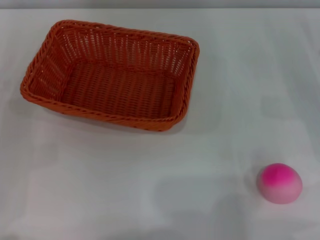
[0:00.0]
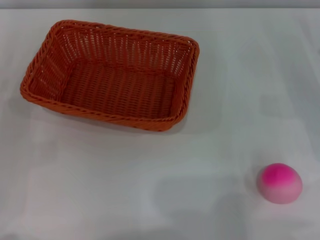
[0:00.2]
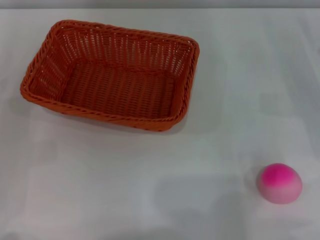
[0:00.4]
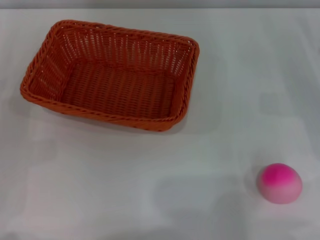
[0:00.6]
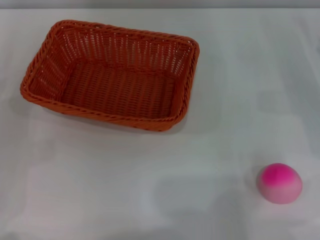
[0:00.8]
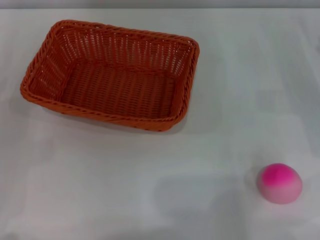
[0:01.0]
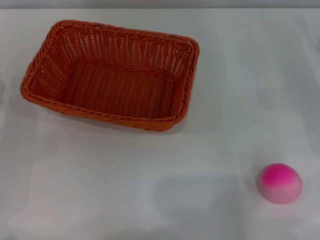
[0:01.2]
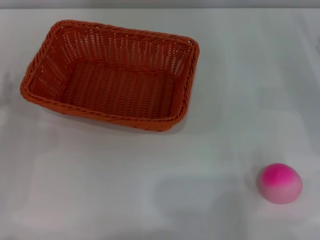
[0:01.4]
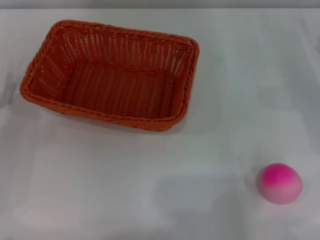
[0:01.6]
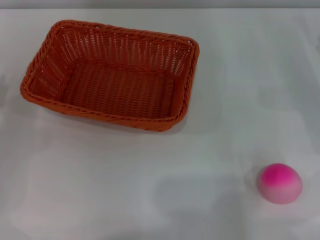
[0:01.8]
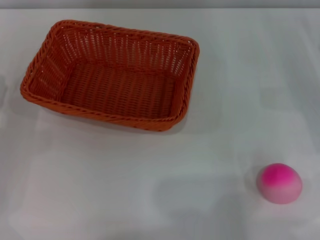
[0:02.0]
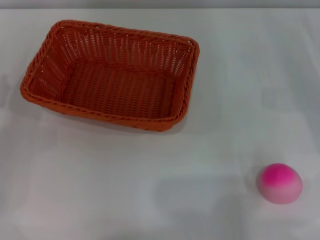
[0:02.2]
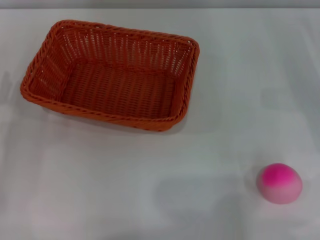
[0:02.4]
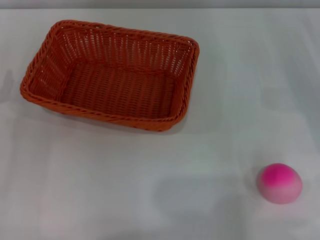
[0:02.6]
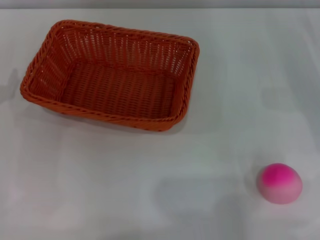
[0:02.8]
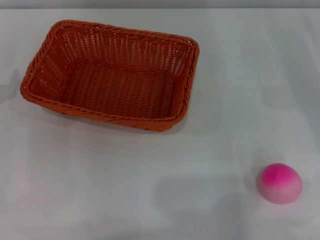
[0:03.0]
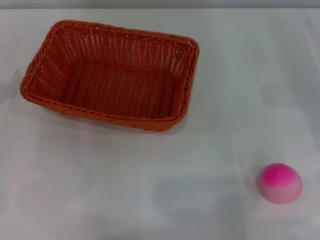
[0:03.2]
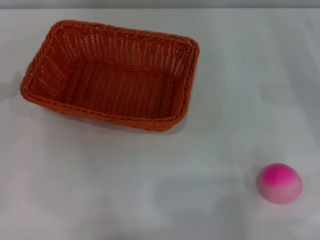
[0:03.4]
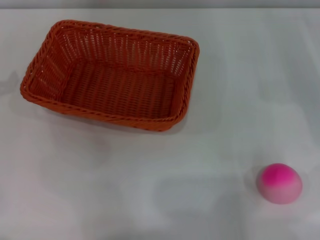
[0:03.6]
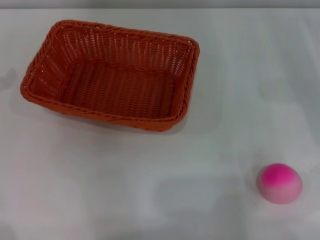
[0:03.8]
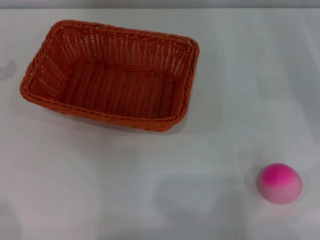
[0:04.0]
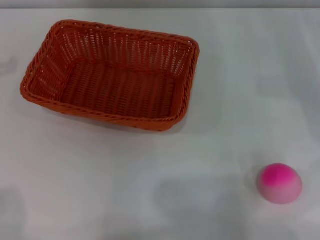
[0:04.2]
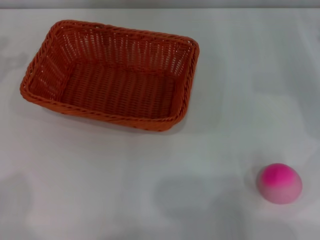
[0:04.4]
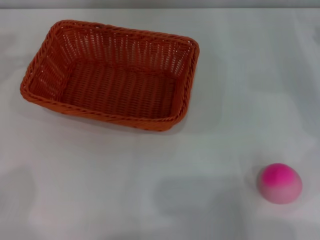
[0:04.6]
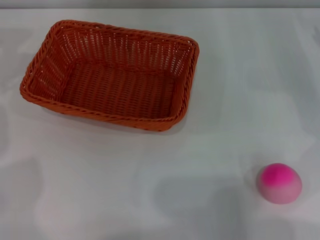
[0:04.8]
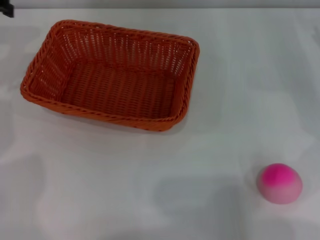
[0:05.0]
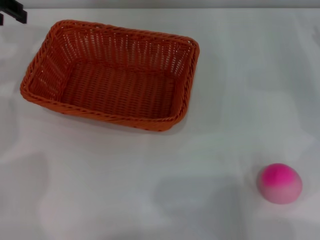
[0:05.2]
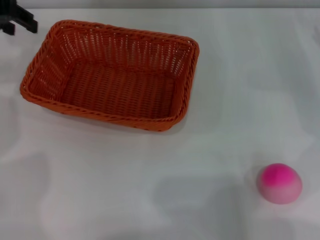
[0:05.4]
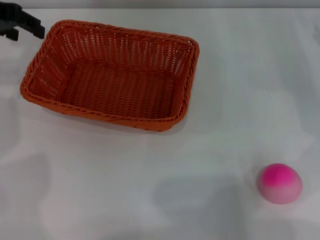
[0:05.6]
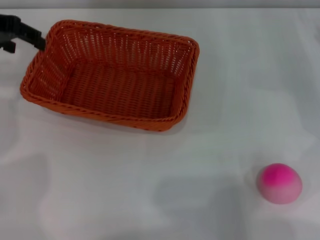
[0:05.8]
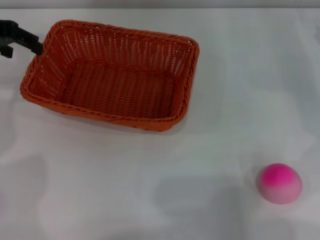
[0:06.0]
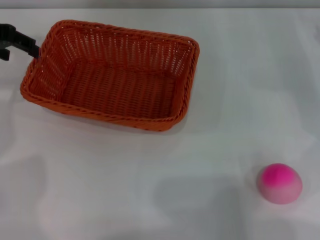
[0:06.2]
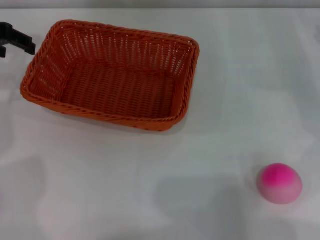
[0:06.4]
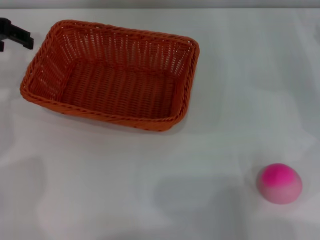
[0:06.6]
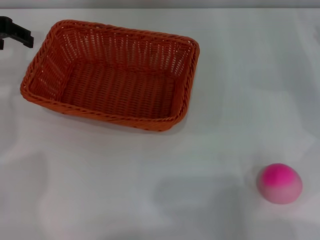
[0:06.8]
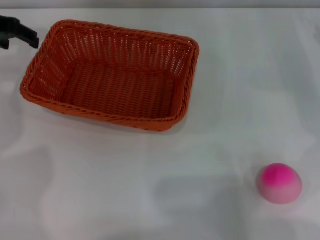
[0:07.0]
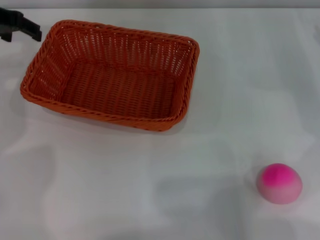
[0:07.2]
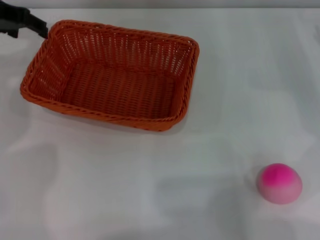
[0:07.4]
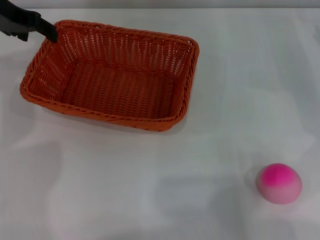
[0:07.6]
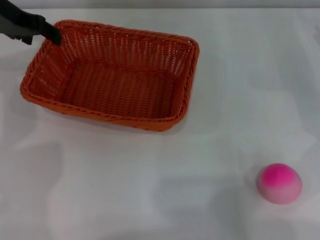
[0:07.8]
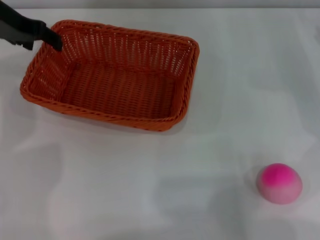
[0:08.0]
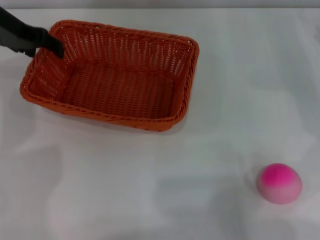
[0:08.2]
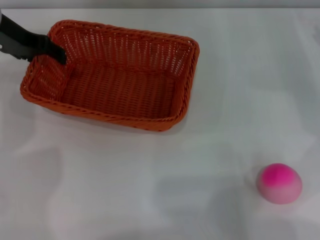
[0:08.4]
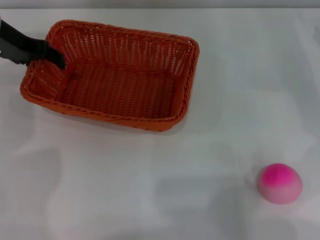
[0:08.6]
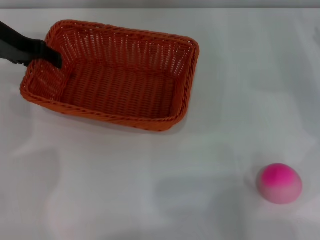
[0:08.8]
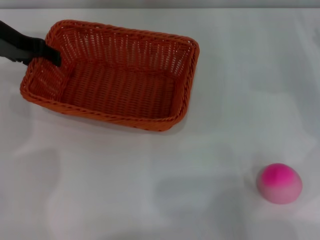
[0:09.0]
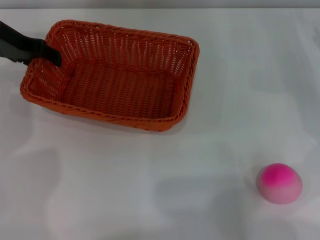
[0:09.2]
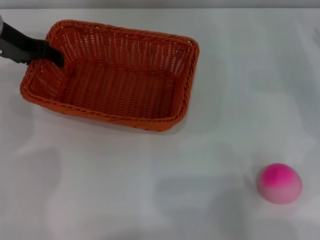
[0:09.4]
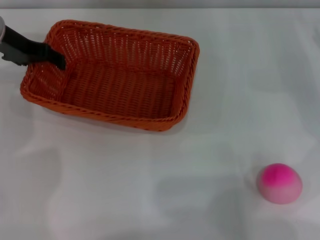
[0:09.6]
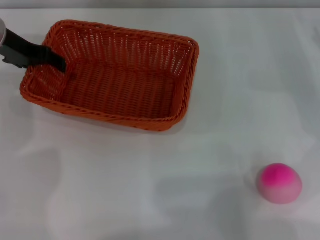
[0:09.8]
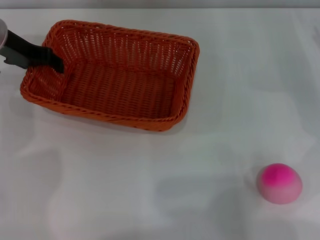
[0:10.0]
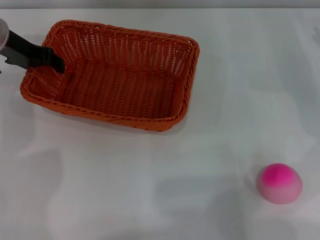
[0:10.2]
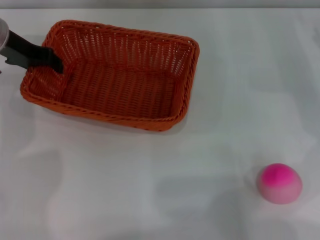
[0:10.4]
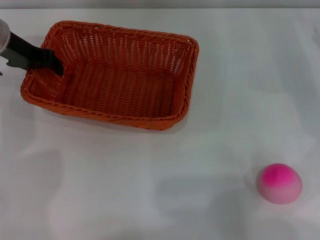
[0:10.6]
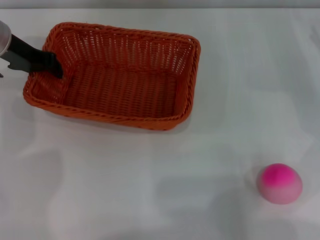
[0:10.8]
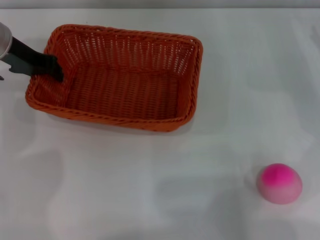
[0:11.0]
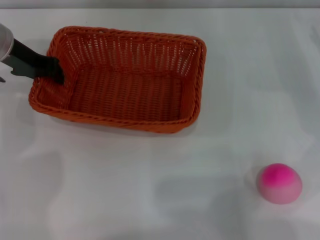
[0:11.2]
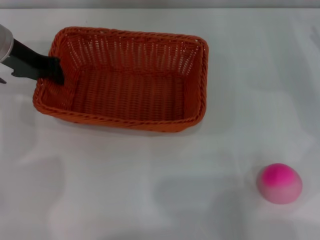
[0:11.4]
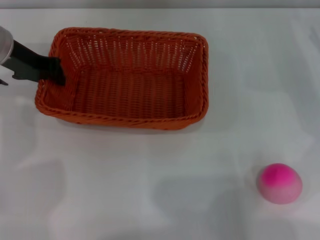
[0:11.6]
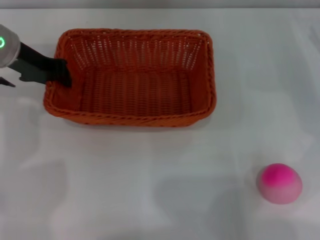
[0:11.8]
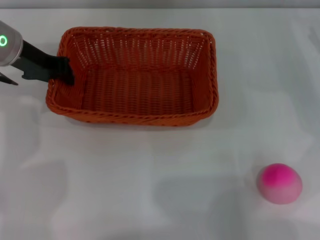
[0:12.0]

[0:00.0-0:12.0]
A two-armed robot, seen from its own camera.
Step, 0:00.0 to 0:11.0: Pick up the light basket with the left gripper.
0:04.4 to 0:06.0: The left gripper heads to the right, covering approximately 5 cm.
0:06.0 to 0:07.6: The left gripper ends up approximately 5 cm from where it was.
0:07.6 to 0:09.0: The grippers stay close to where they were, moving slightly.
0:09.0 to 0:10.4: The left gripper closes its fingers.
0:10.4 to 0:12.0: The left gripper closes up.

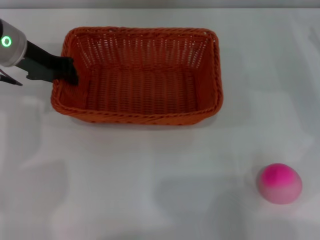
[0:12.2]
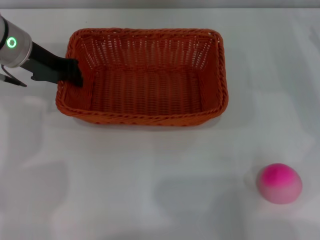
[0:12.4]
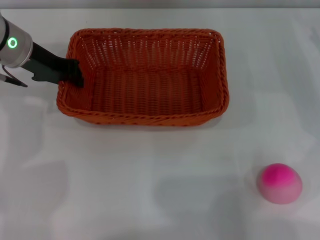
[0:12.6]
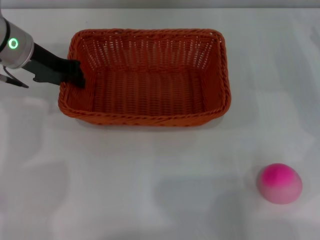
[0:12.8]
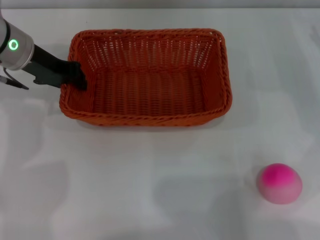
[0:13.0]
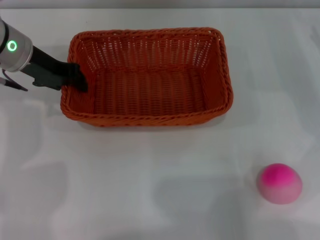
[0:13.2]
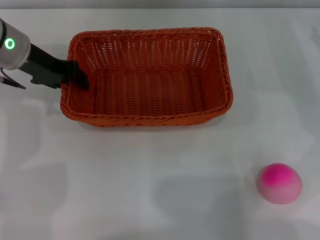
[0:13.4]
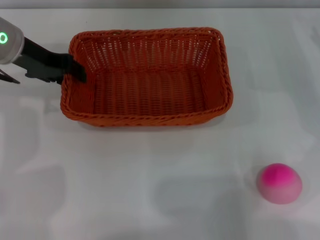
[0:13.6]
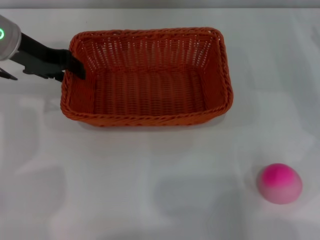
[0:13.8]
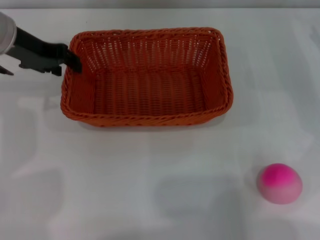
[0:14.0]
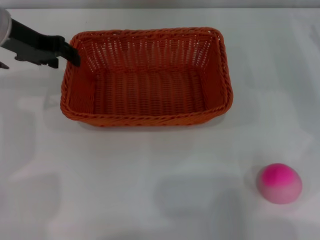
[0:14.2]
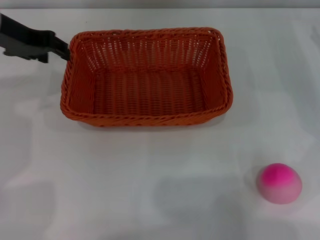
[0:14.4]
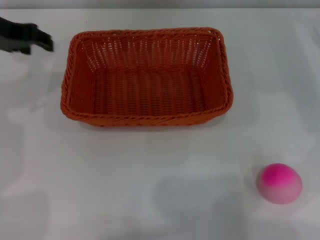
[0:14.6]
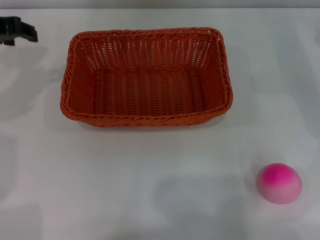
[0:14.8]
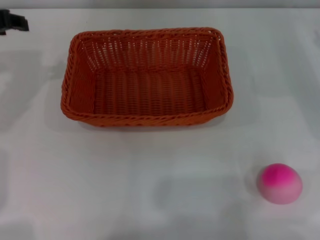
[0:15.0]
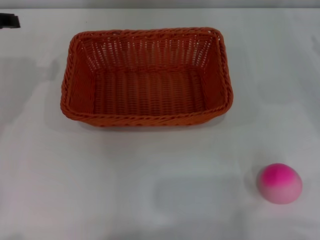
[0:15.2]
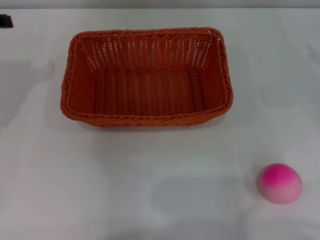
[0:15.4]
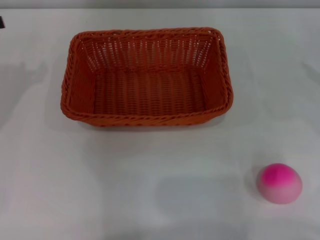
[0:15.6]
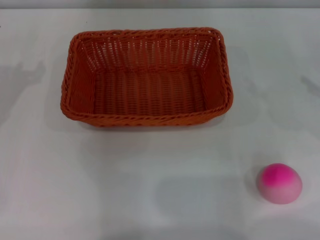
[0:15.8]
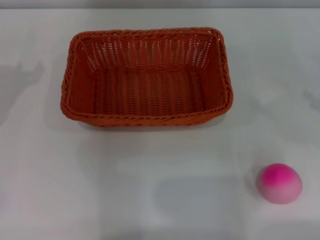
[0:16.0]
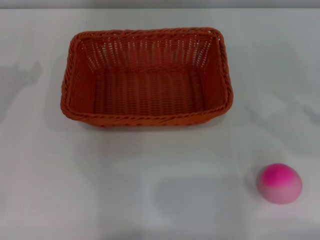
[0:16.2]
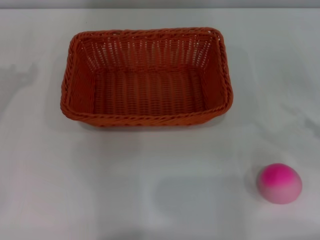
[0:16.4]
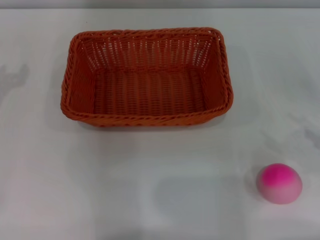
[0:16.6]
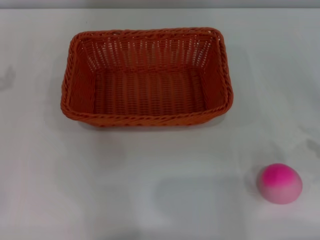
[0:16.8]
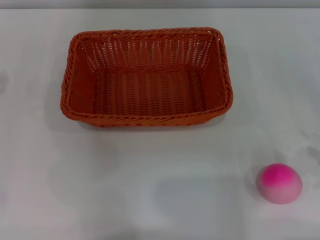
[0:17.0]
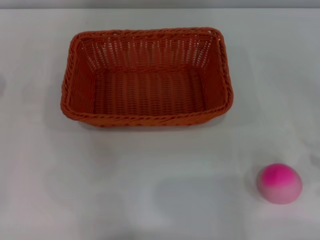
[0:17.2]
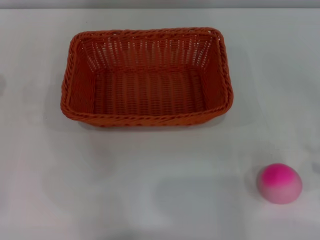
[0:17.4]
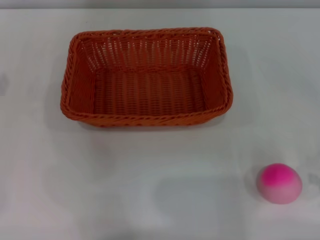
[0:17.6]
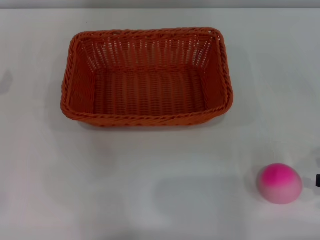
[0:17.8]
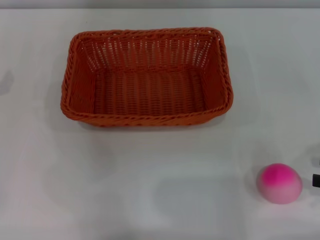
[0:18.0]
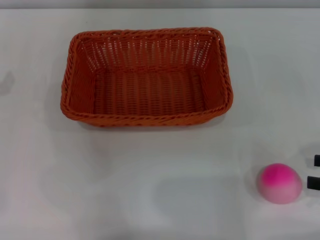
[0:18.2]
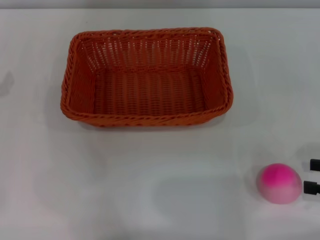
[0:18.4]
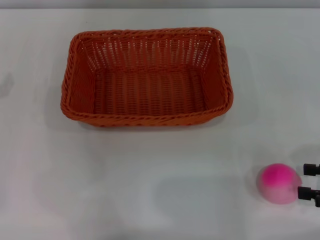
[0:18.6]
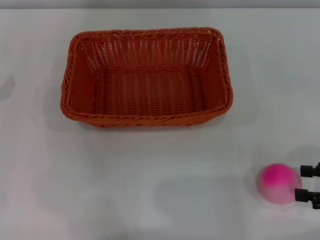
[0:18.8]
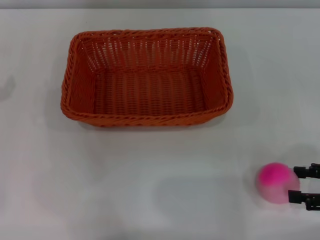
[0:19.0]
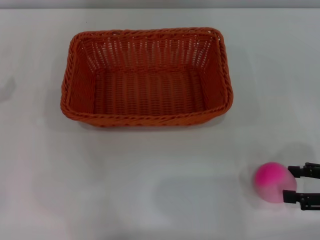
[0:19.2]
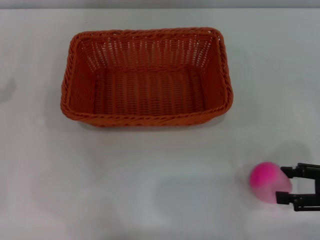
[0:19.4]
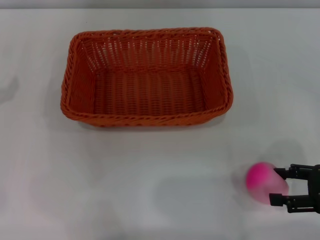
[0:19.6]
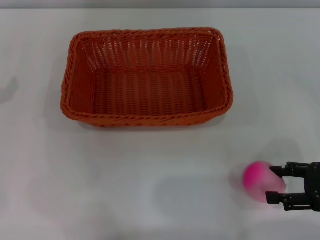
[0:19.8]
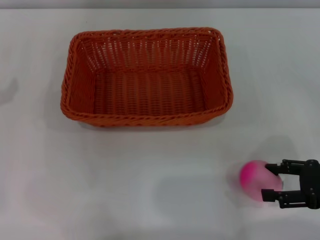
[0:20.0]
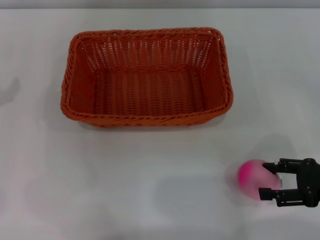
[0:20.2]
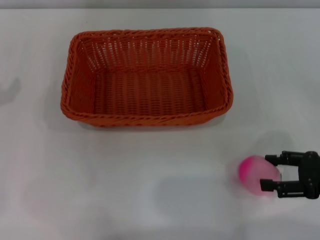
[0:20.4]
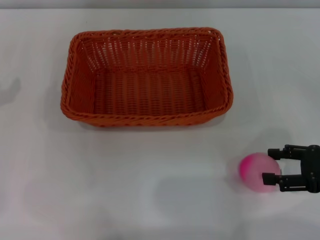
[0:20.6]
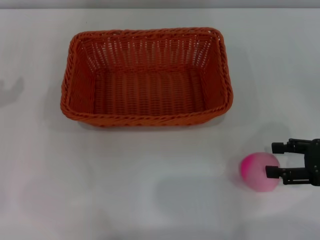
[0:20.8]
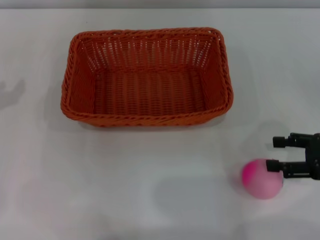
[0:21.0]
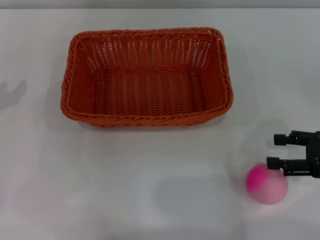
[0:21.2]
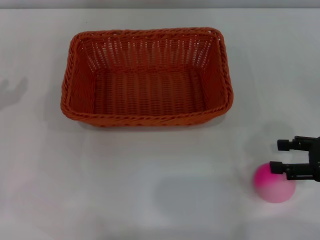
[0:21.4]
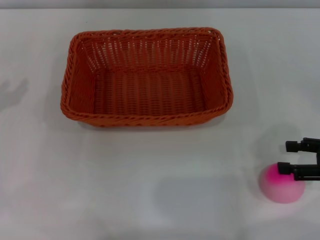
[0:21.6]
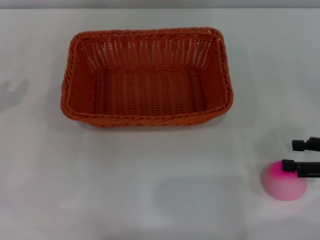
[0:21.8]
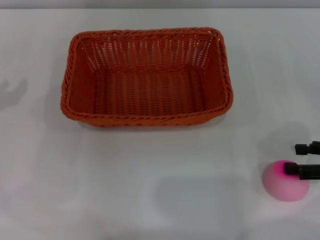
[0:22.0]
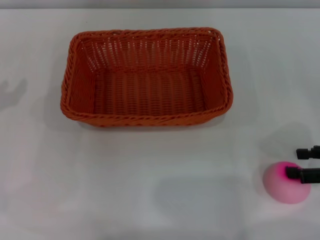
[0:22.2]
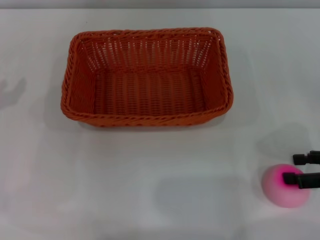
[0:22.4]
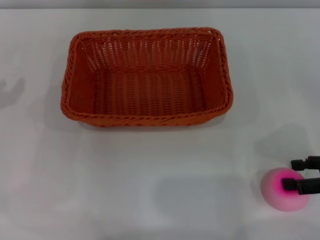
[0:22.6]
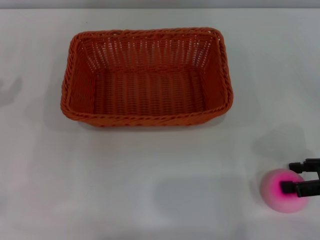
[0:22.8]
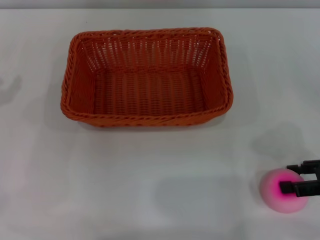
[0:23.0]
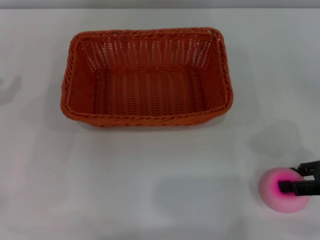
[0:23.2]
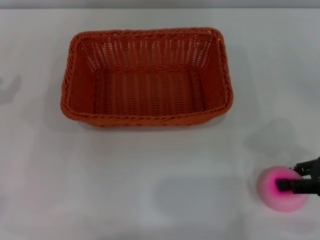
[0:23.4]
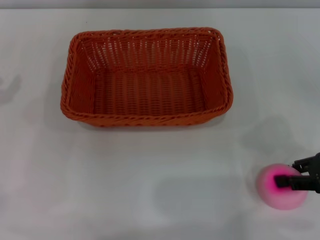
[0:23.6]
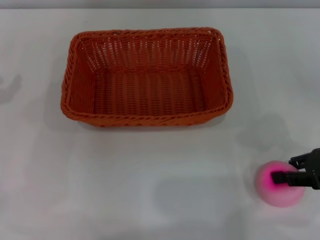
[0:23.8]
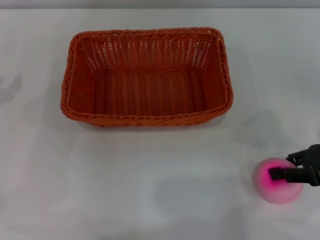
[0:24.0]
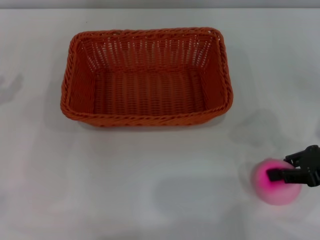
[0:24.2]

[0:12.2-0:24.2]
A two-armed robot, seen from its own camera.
Step, 0:12.2 to 0:14.6: Place the light basket in the center of view with the right gripper.
0:12.2 to 0:13.8: The left gripper opens up.
0:13.8 to 0:15.2: The left gripper is displaced to the left and backward by approximately 10 cm.
0:18.2 to 0:19.8: The right gripper shifts some 5 cm to the left.
0:19.8 to 0:22.6: The grippers move only a little.
0:22.6 to 0:24.2: The right gripper closes its fingers.
